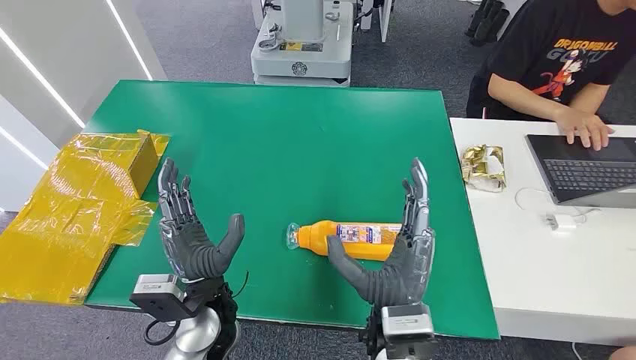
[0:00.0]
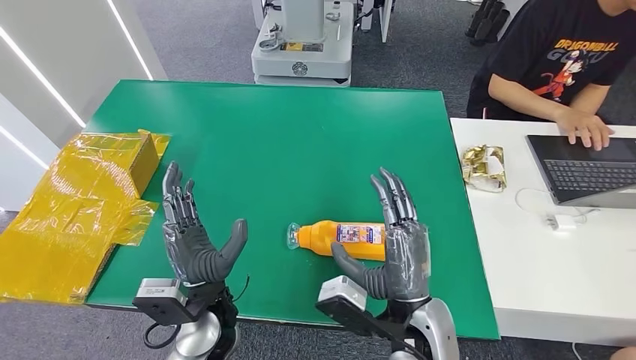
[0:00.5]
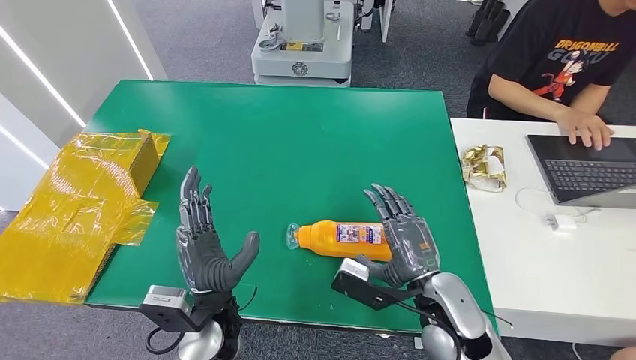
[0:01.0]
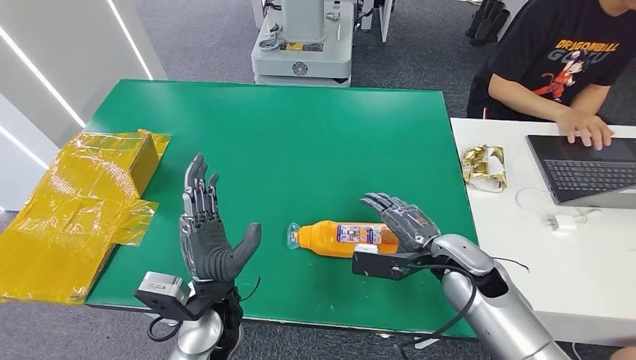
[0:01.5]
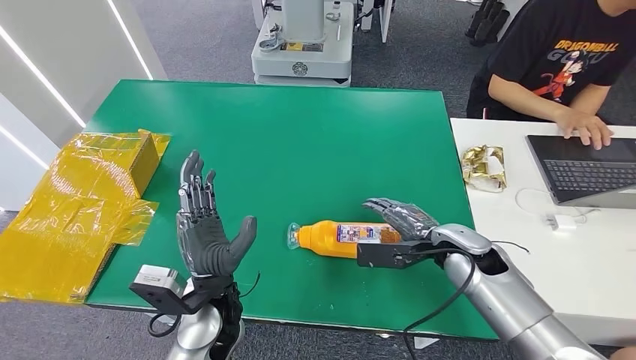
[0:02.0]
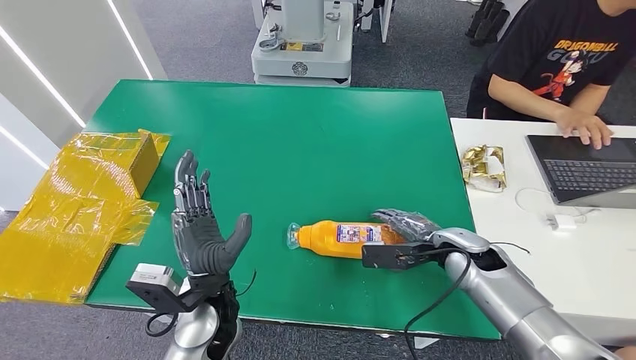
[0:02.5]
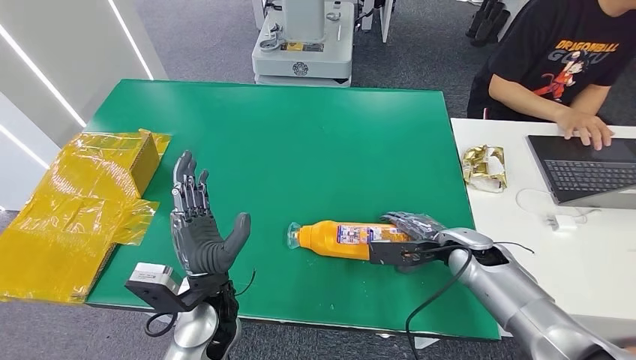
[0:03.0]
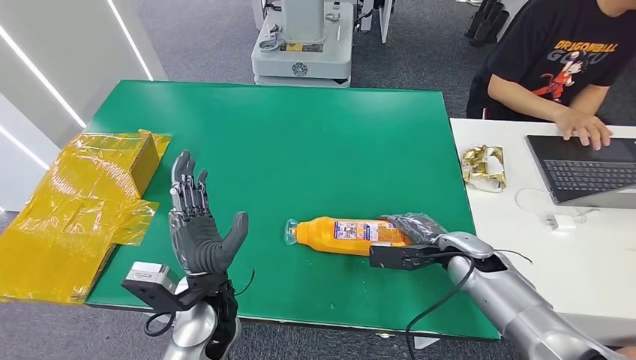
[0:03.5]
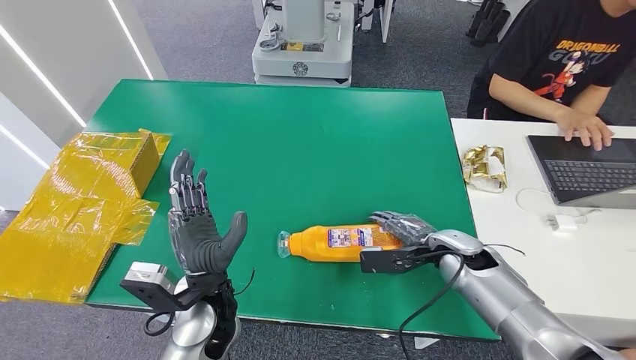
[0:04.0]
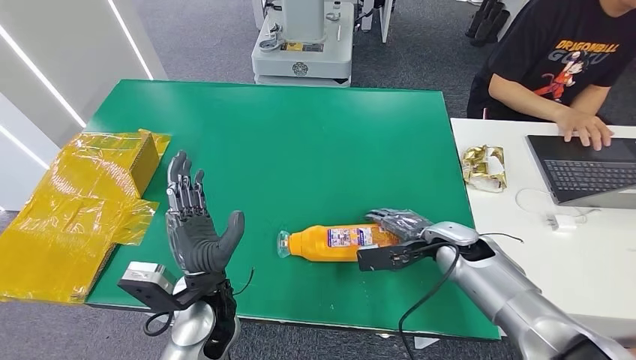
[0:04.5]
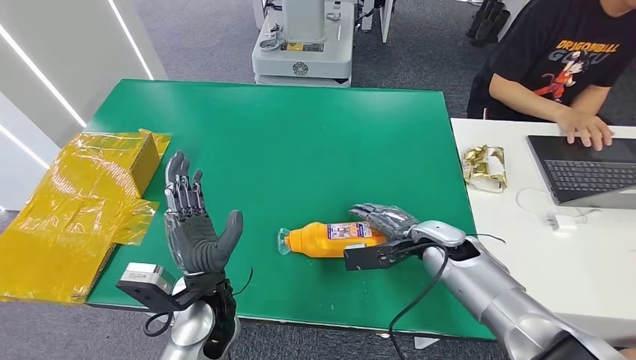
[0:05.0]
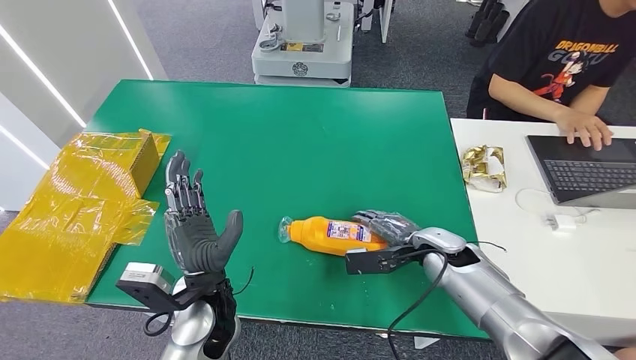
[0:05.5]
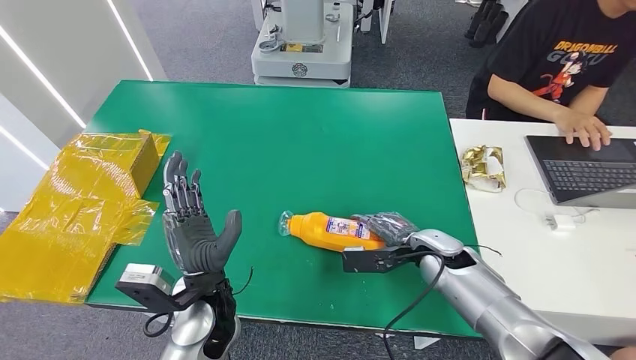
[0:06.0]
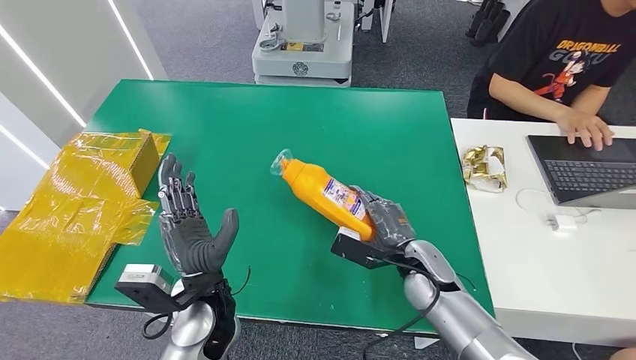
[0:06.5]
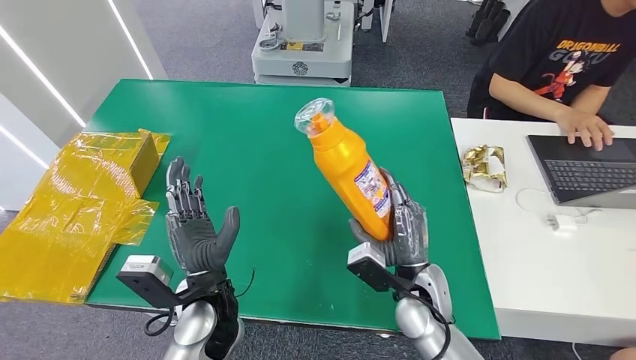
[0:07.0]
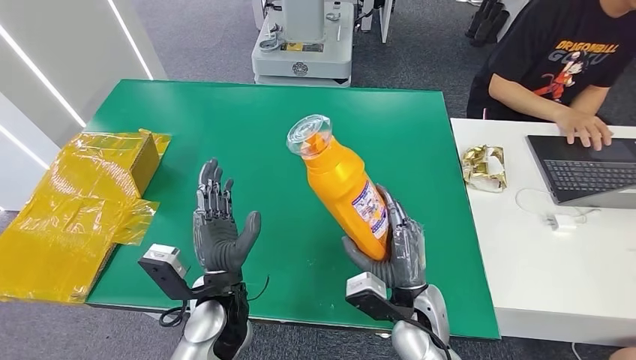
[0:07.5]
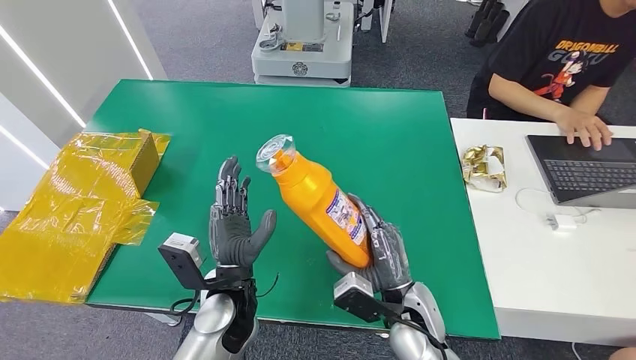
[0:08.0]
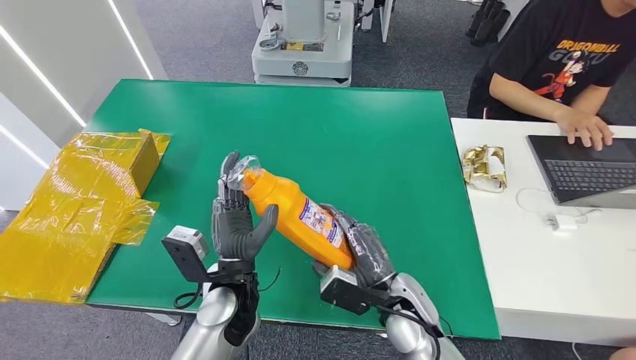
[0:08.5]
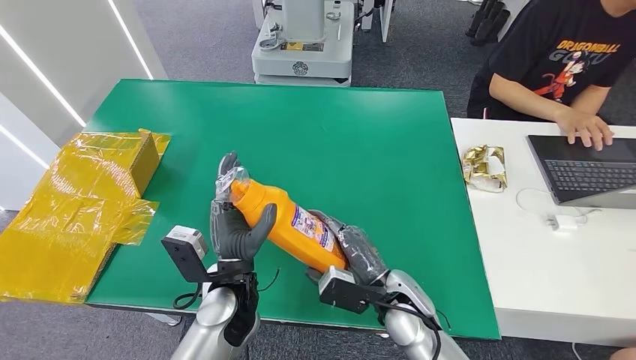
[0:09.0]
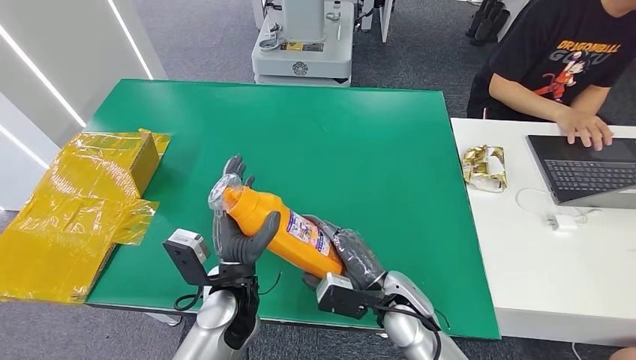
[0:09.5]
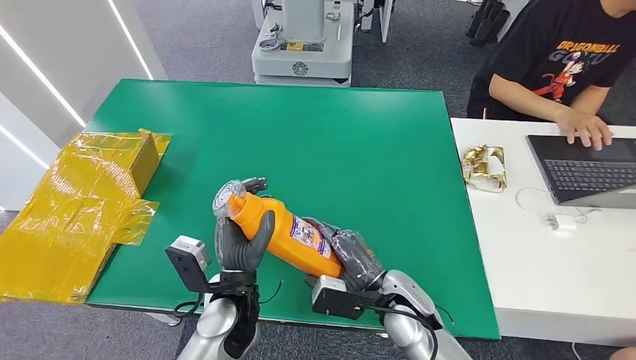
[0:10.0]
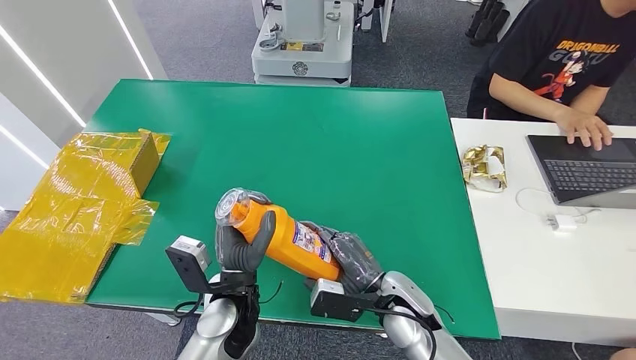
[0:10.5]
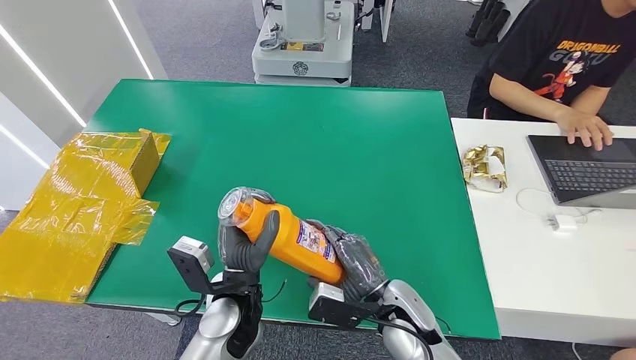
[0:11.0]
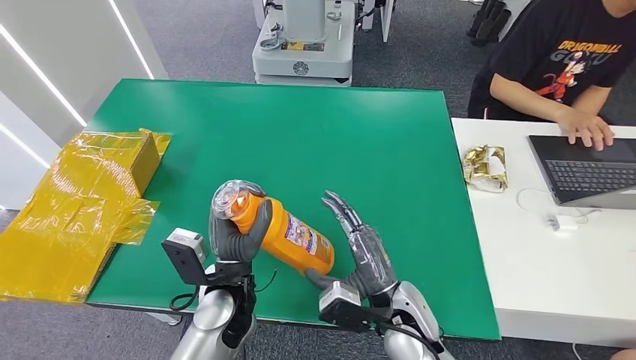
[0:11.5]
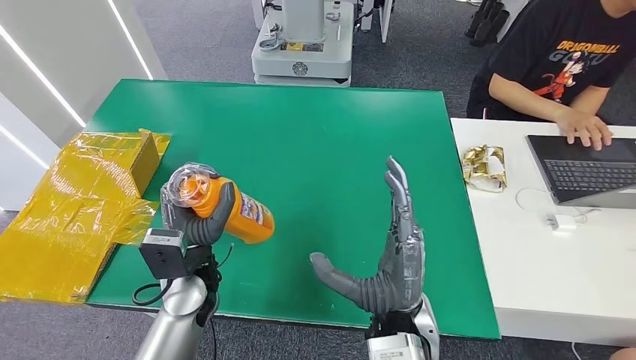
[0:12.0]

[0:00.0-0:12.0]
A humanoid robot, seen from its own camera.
Step, 0:00.0 to 0:06.5: Pick up the bottle from the table.
0:02.0 to 0:06.0: The hands move only a little.
0:06.0 to 0:08.0: The right hand is displaced backward and to the left by about 15 cm.
0:10.0 to 0:12.0: The left hand shifts some 5 cm to the left; the right hand moves upward and backward, approximately 10 cm.

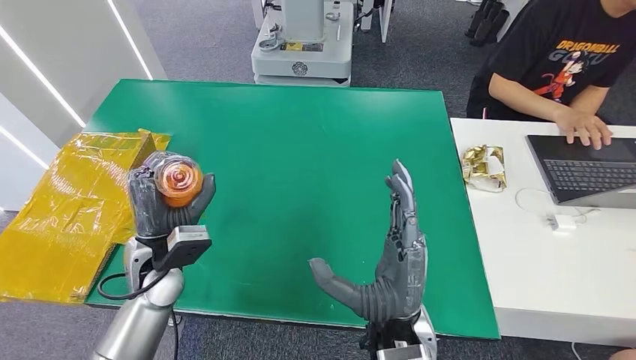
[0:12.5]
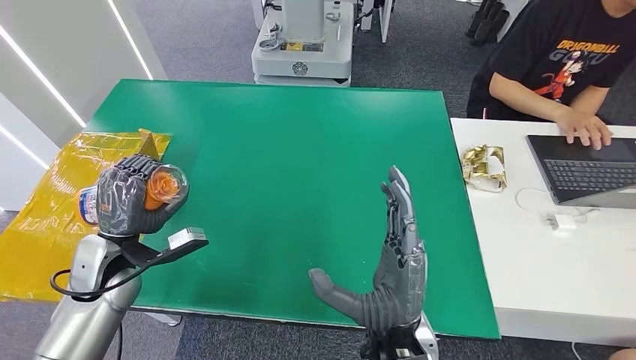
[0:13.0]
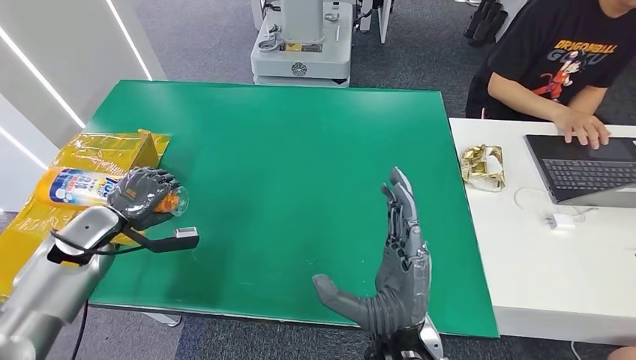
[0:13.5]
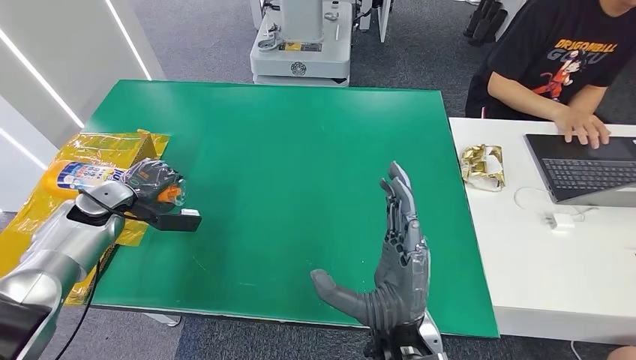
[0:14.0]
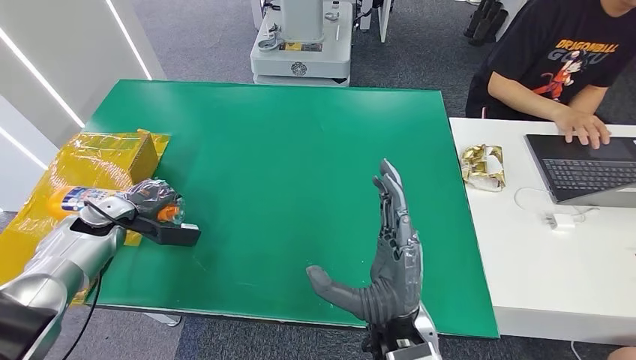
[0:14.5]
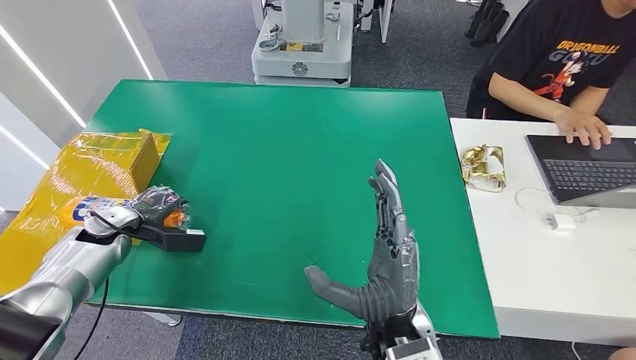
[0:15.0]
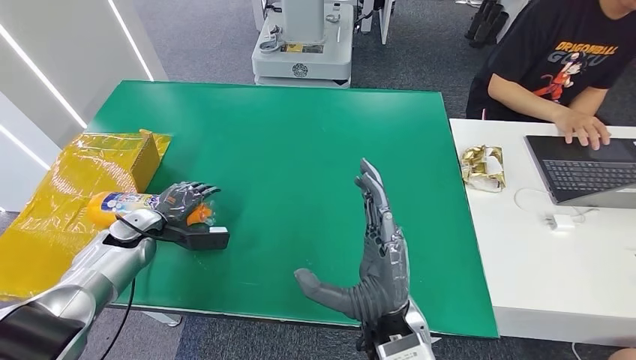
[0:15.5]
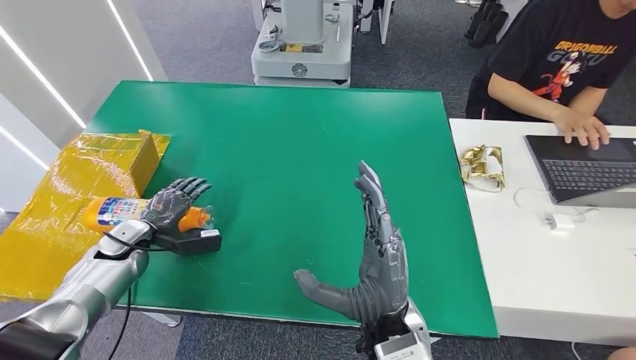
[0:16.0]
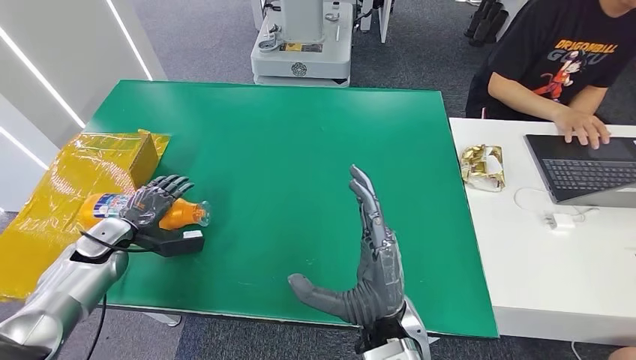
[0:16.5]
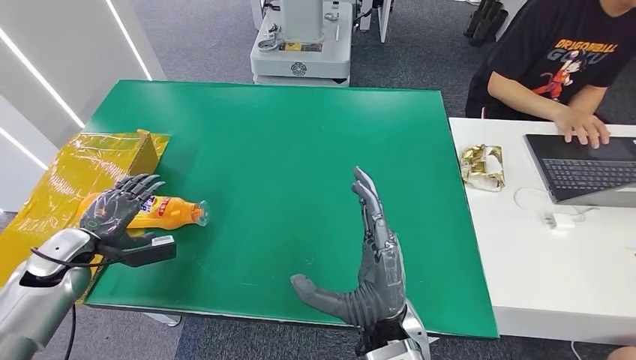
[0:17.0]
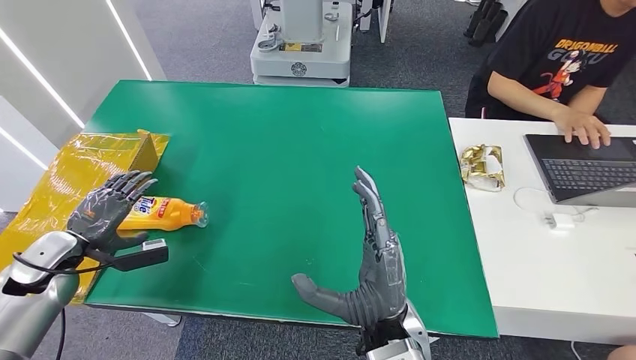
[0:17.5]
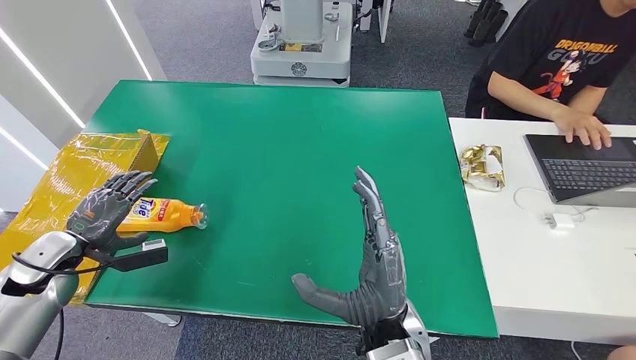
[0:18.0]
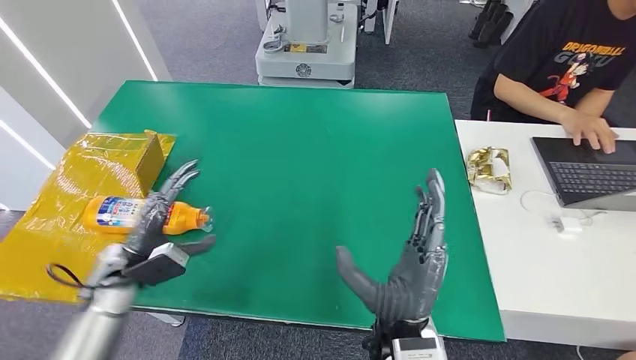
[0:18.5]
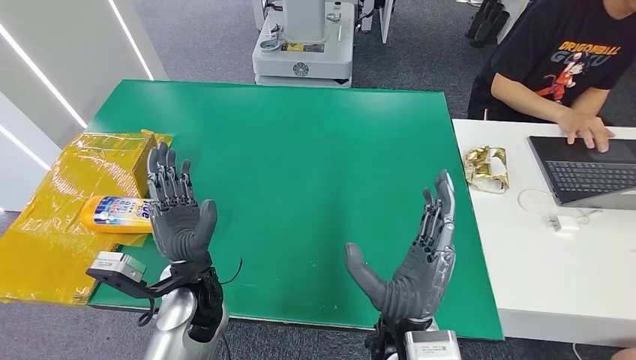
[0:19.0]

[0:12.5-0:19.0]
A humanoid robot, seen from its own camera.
Step, 0:12.5 to 0:19.0: Turn the bottle to the front side.
0:12.5 to 0:14.5: The left hand goes roughly 20 cm to the left and forward.
0:14.5 to 0:17.0: The left hand heads backward, covering approximately 10 cm.
